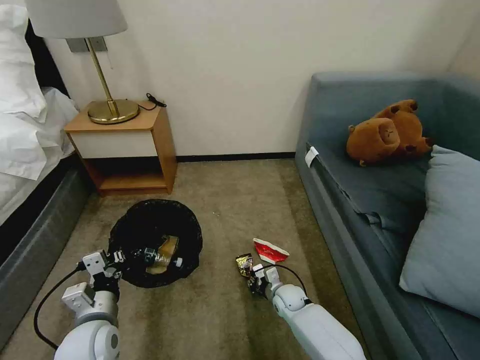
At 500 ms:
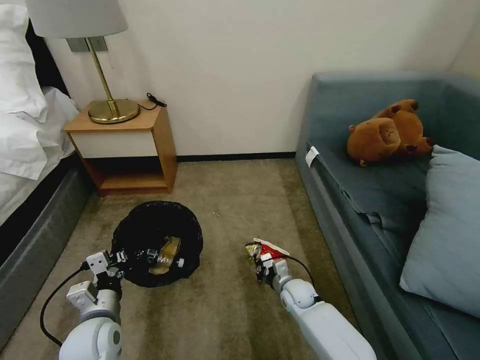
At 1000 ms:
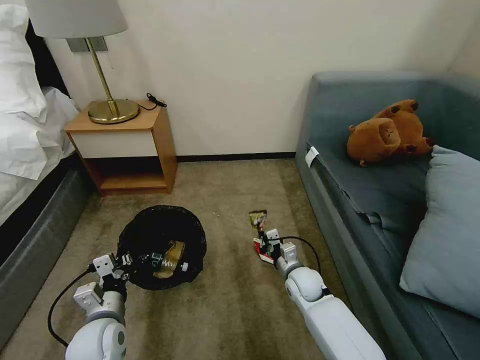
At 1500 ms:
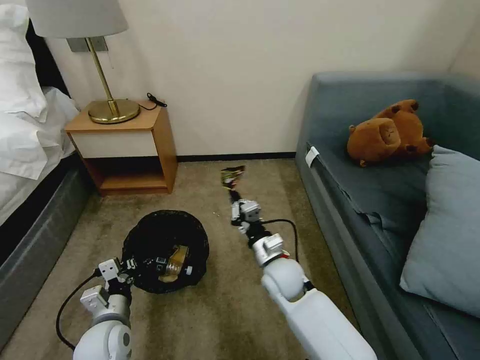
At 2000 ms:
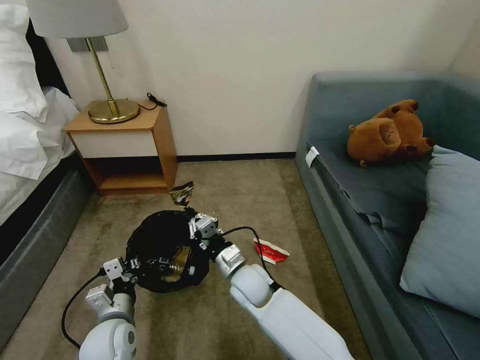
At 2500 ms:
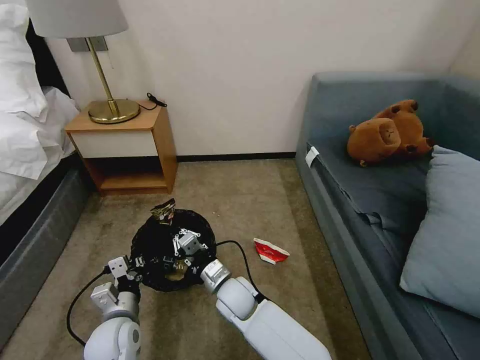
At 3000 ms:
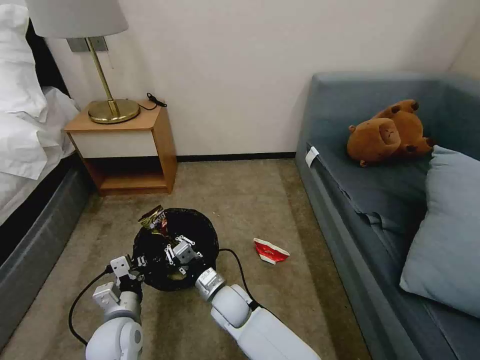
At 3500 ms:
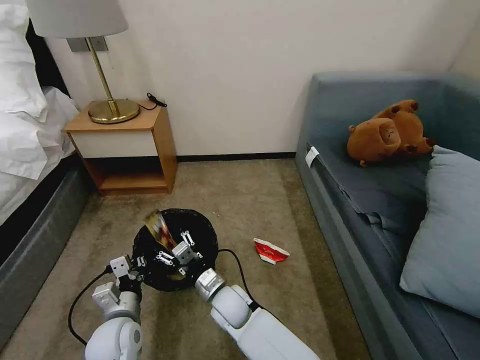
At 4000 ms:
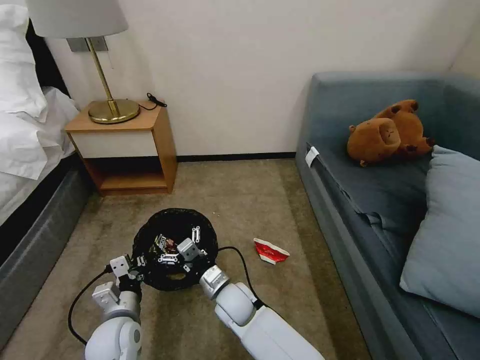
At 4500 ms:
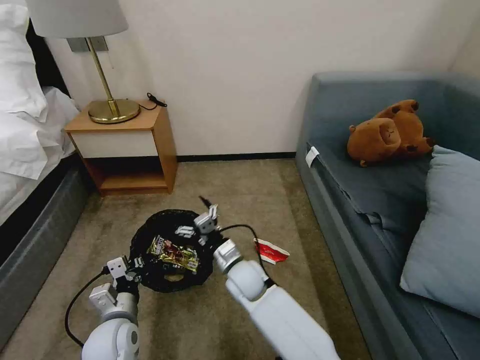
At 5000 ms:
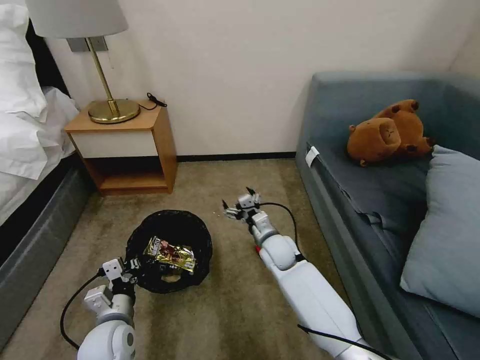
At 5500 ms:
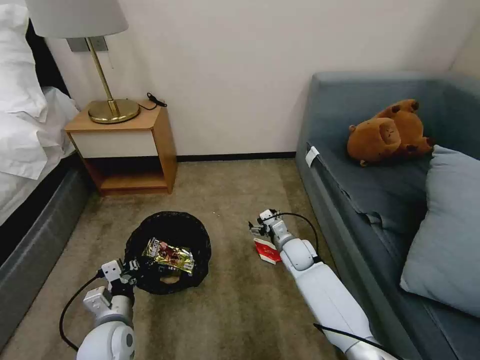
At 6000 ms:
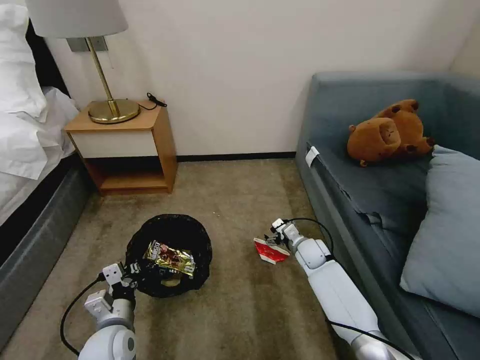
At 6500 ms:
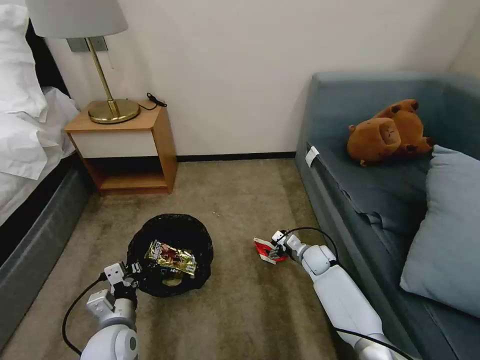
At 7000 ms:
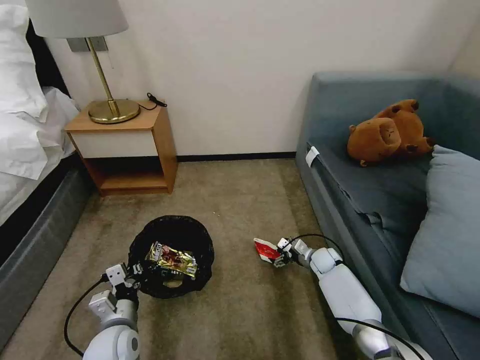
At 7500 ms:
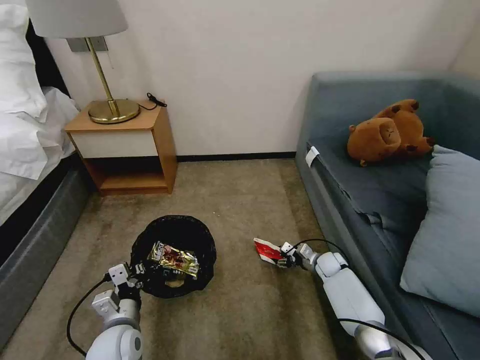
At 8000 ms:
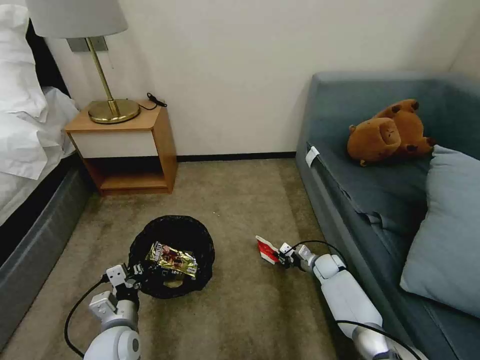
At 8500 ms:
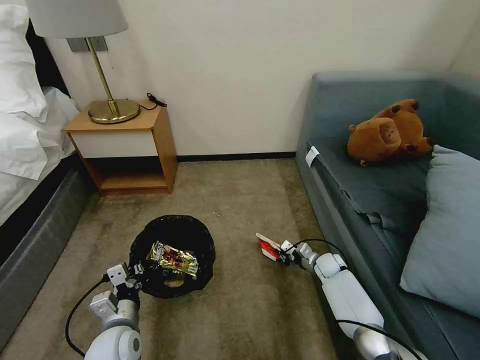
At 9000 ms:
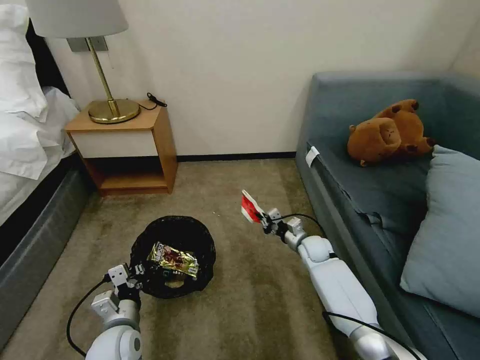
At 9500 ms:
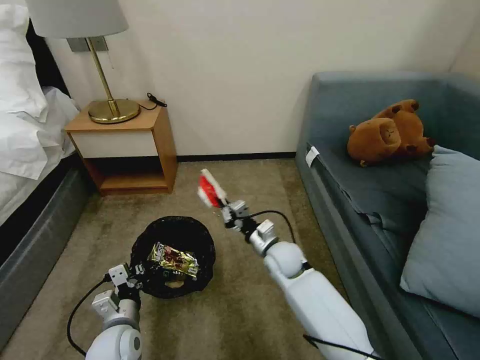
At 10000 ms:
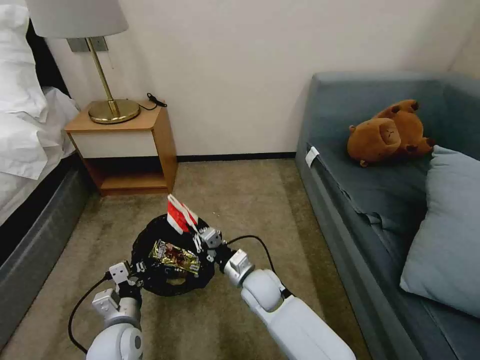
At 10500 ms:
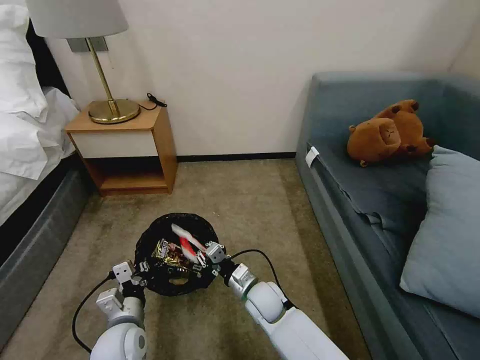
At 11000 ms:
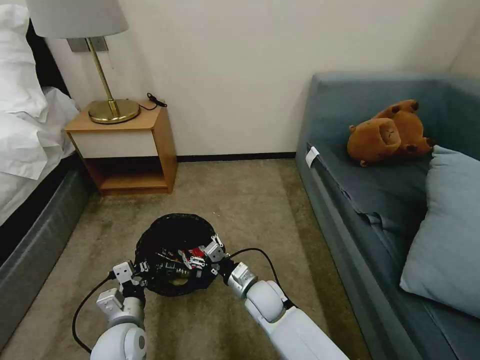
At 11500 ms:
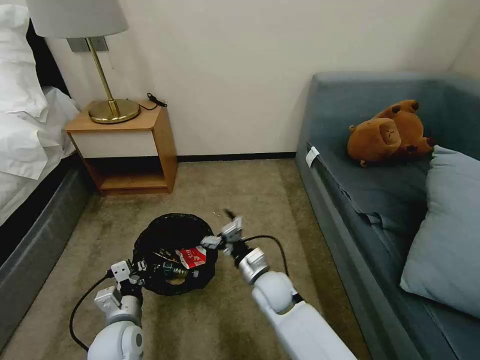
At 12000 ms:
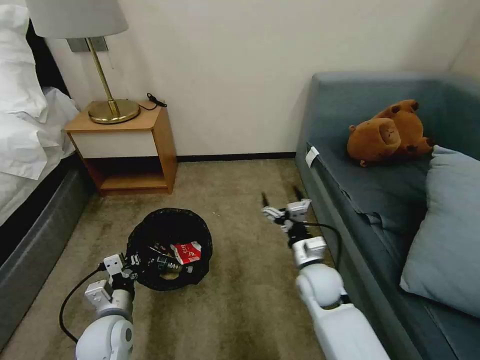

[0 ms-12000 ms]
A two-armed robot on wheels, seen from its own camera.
Task of the whole recording: Pick up the trash bin, then pick up the garbage on the floor and place it into the trash bin.
0 ms to 2000 ms: The right gripper travels upward and to the left by about 20 cm, while the left gripper shifts by roughly 5 cm.
2000 ms to 4000 ms: The right gripper moves to the left, about 5 cm, and opens its fingers.
4000 ms to 6000 ms: The right gripper goes about 30 cm to the right and forward.
6000 ms to 8000 ms: The right gripper heads downward and to the right, covering about 10 cm, and closes up.
8000 ms to 10000 ms: The right gripper shifts about 30 cm to the left, upward and backward.
10000 ms to 12000 ms: The right gripper travels to the right by some 10 cm, and opens up.

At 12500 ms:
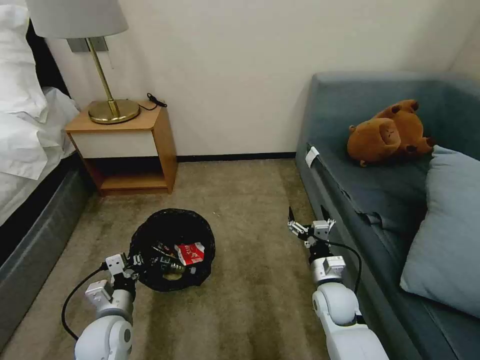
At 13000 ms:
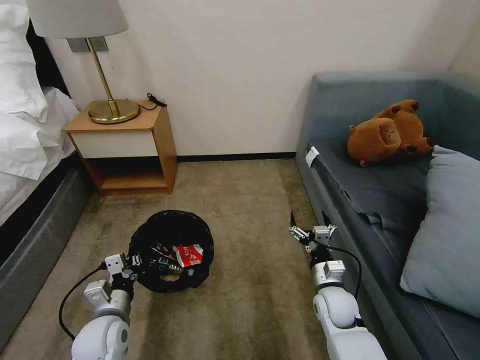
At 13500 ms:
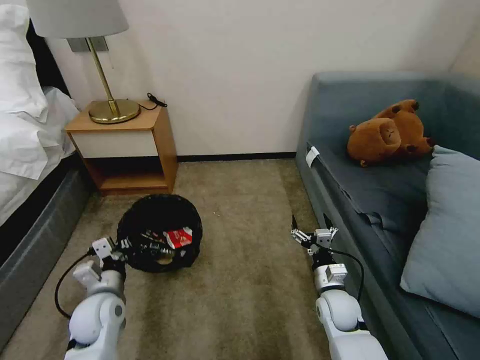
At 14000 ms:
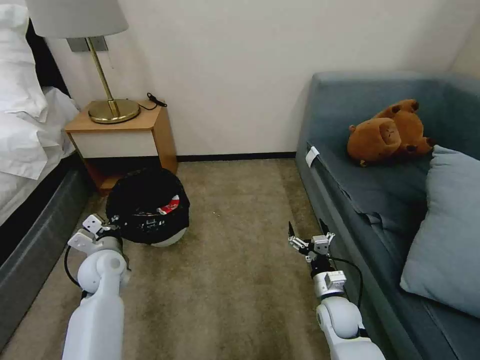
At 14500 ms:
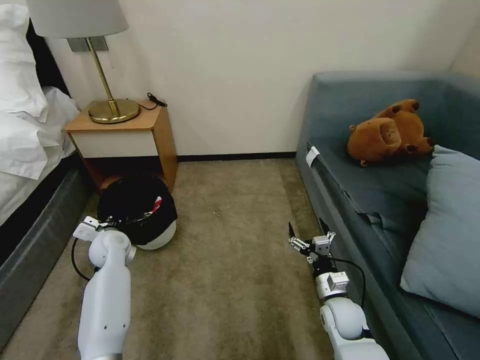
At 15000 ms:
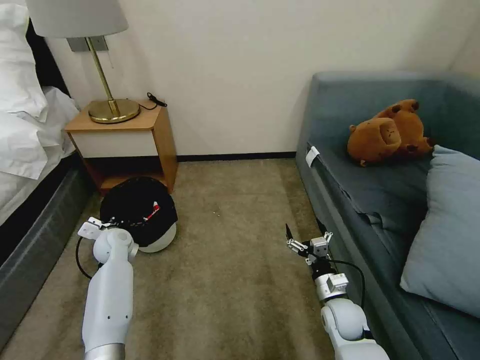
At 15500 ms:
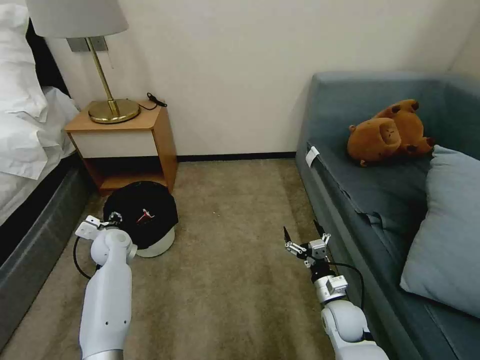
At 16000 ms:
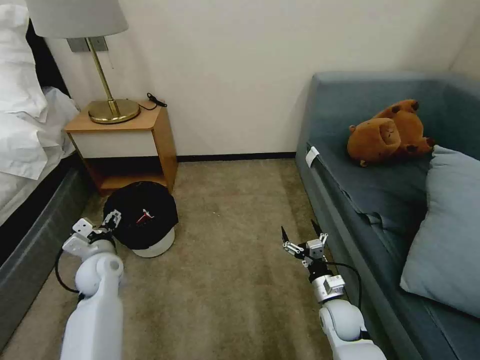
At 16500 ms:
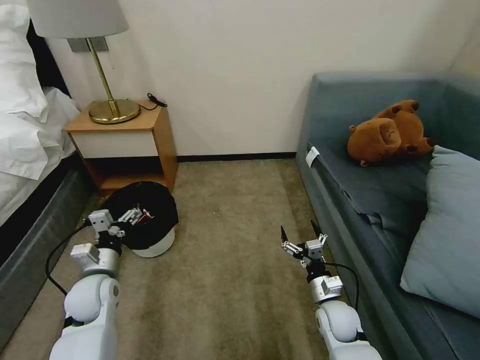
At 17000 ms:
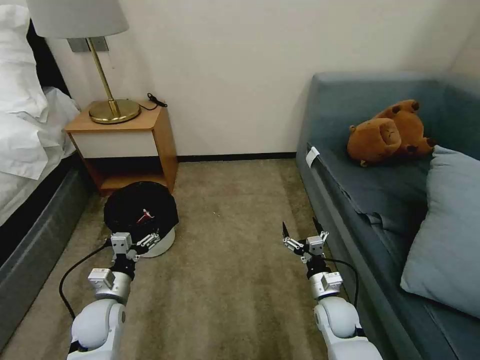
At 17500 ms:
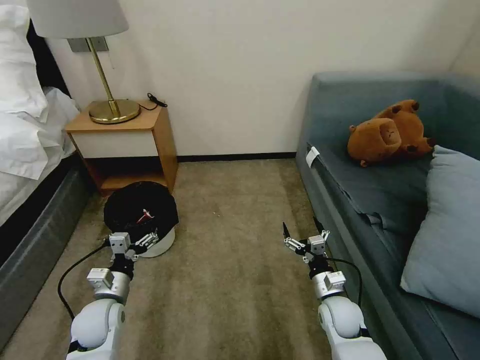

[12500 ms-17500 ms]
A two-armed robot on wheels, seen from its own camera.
Task of the whole recording: Pick up the trash bin, then pick up the garbage on the floor and place it into the trash bin.
12500 ms to 15000 ms: The left gripper goes about 20 cm forward. Meanwhile the right gripper changes place by about 5 cm.
15000 ms to 17500 ms: The left gripper goes approximately 20 cm backward, and opens up.

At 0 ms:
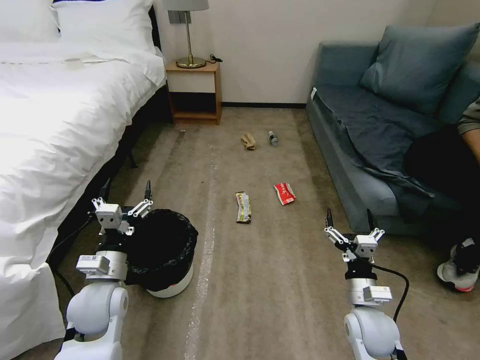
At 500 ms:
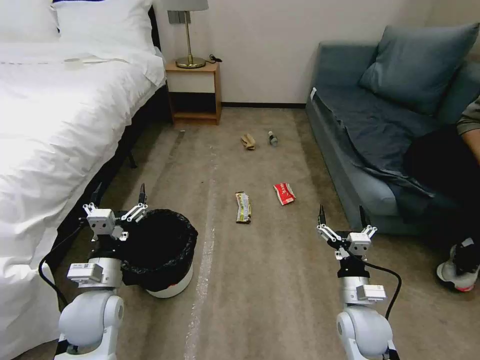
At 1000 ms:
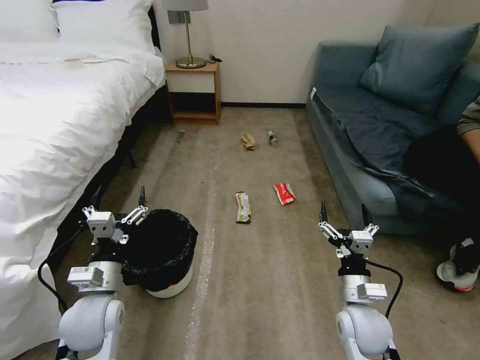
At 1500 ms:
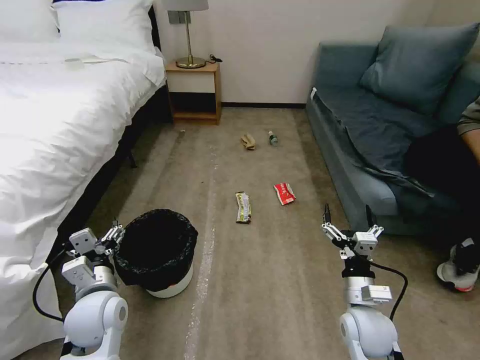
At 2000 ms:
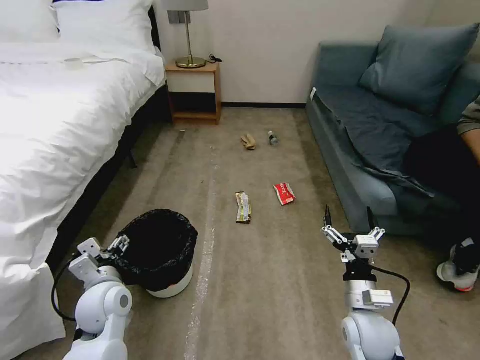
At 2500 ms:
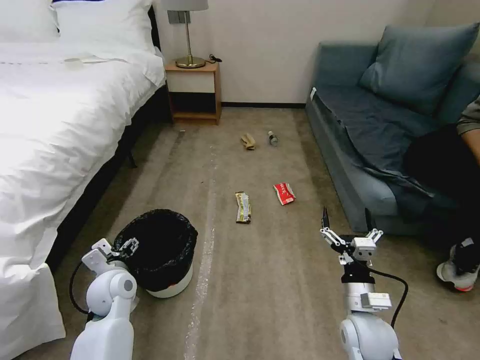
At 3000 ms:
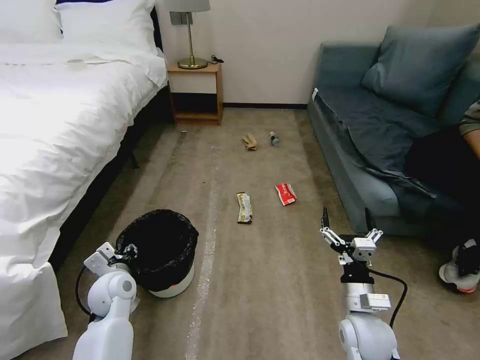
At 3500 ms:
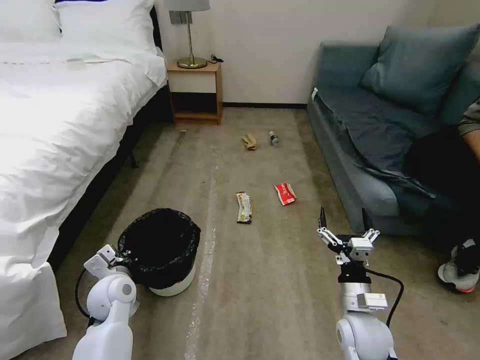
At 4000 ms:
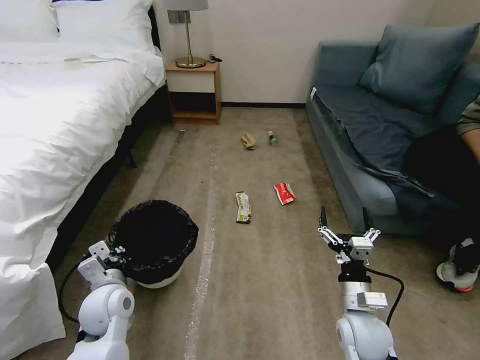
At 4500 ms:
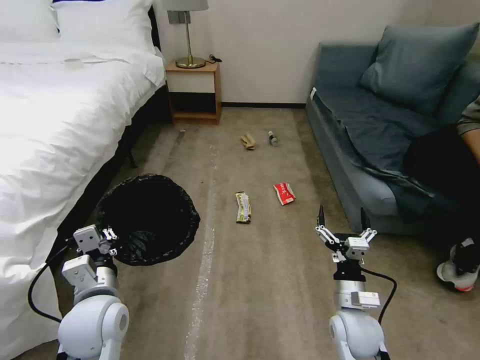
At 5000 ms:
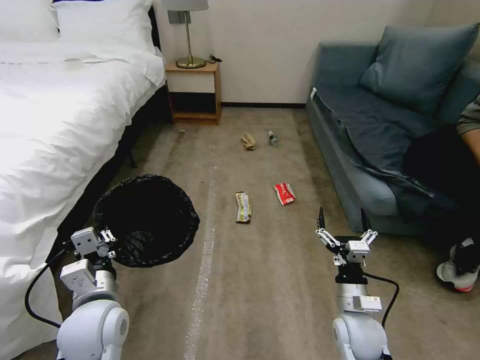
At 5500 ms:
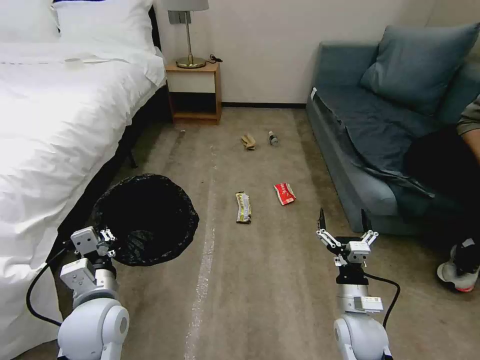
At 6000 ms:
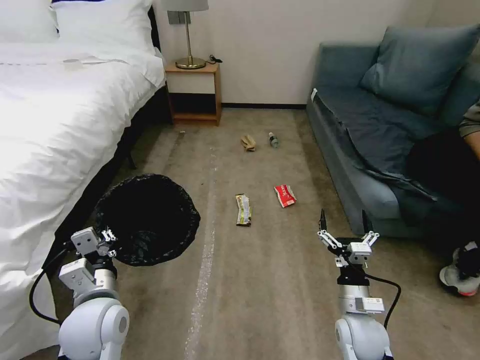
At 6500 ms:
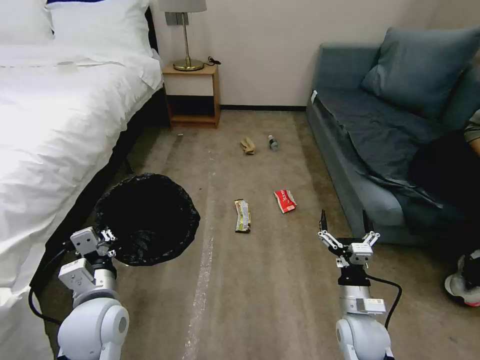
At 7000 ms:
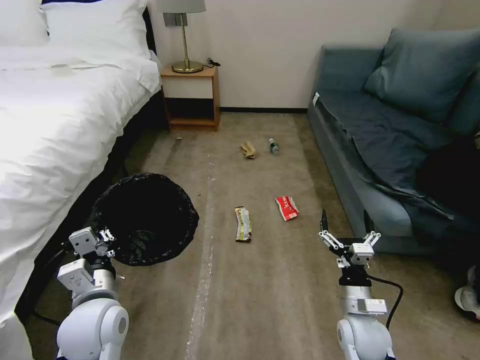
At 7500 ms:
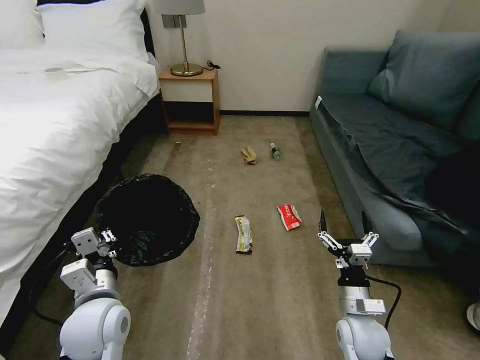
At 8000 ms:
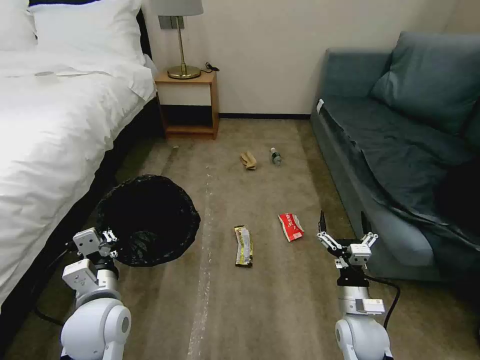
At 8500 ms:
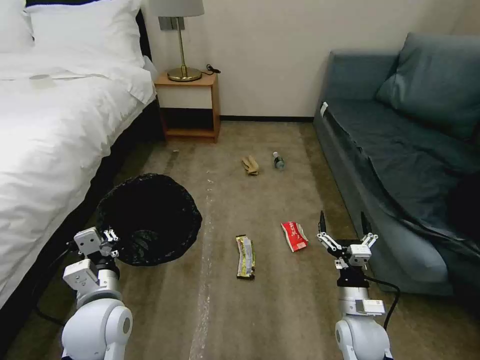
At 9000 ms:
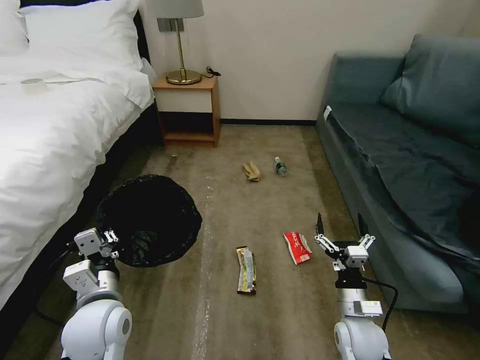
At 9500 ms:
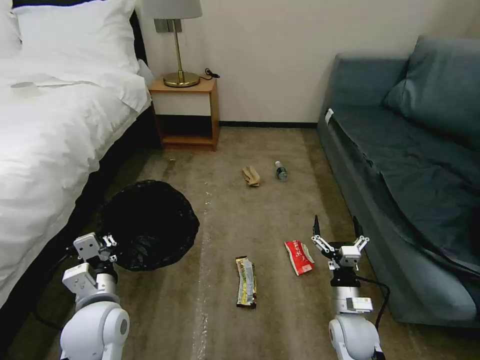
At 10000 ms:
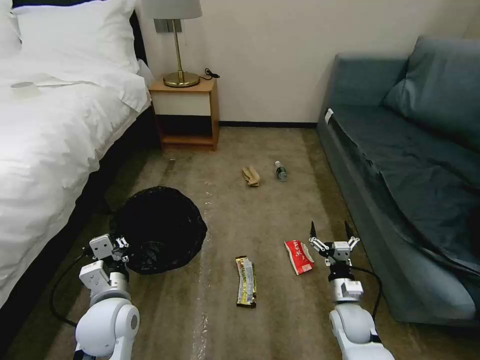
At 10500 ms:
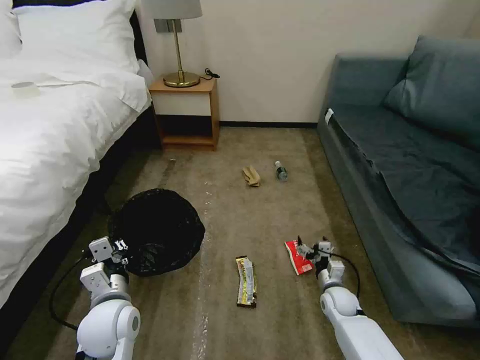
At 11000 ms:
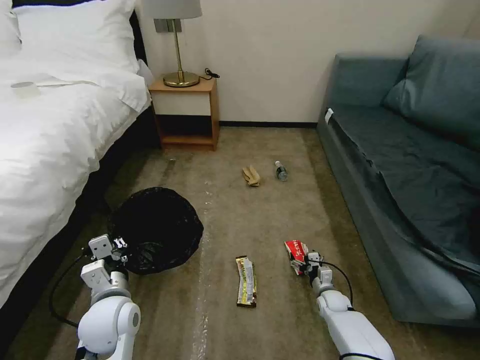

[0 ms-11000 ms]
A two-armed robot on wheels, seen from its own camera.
Task of the whole recording: Pick up the trash bin, then pick up the garbage on the floor and place it into the trash bin.
2000 ms to 3500 ms: The left gripper moves approximately 5 cm, and closes up.
3500 ms to 5500 ms: The left gripper moves upward and backward, about 10 cm.
9000 ms to 11000 ms: The right gripper shifts some 25 cm downward and forward.
